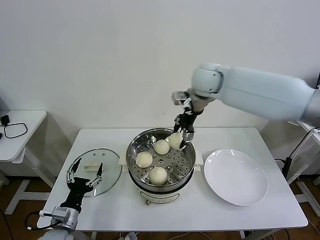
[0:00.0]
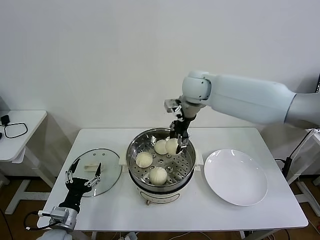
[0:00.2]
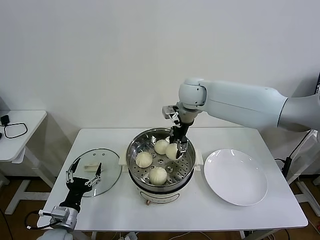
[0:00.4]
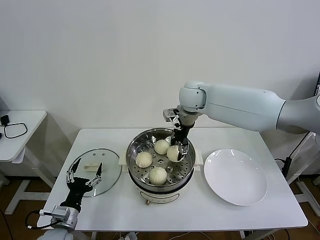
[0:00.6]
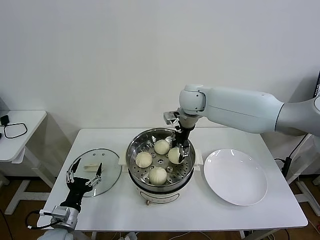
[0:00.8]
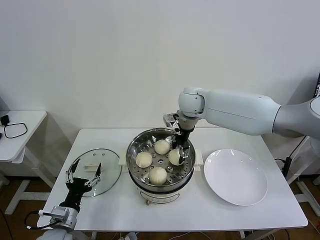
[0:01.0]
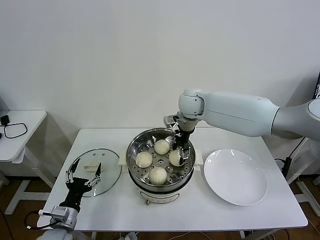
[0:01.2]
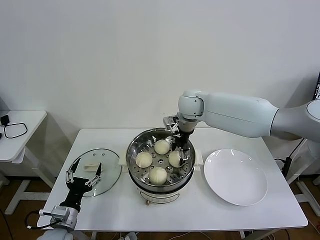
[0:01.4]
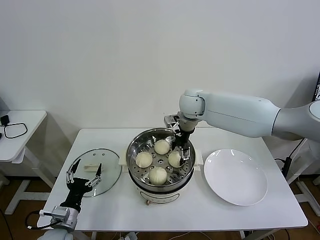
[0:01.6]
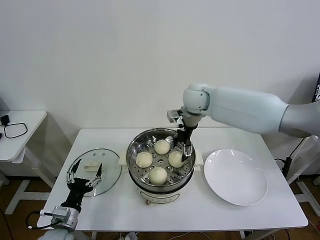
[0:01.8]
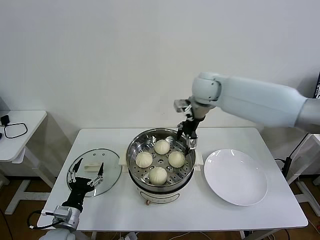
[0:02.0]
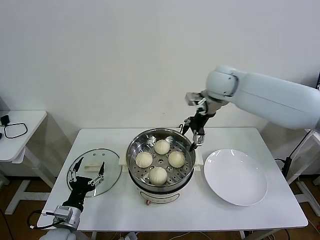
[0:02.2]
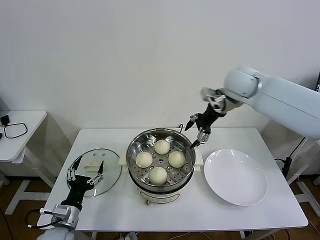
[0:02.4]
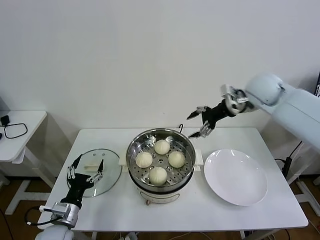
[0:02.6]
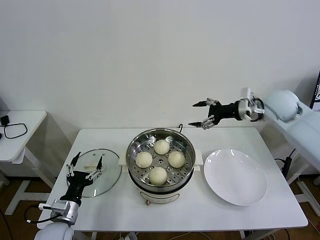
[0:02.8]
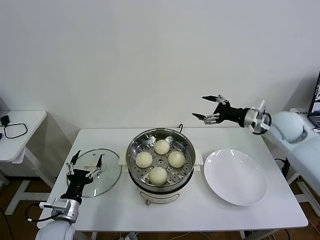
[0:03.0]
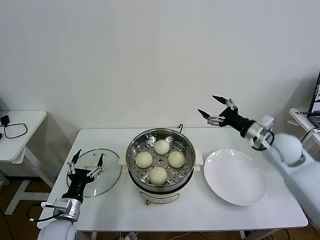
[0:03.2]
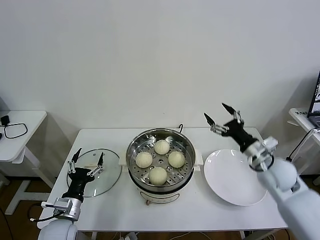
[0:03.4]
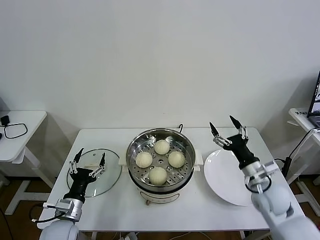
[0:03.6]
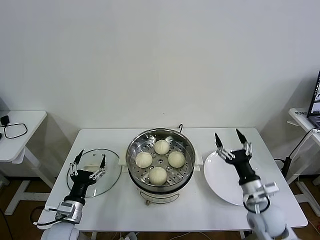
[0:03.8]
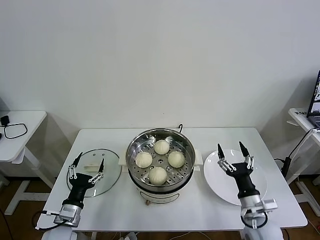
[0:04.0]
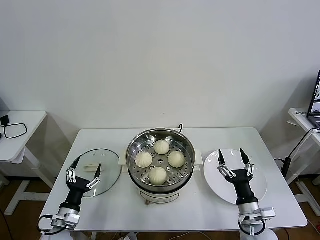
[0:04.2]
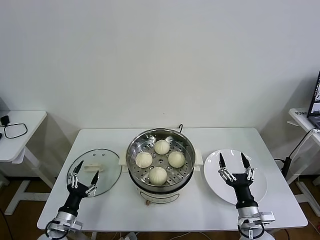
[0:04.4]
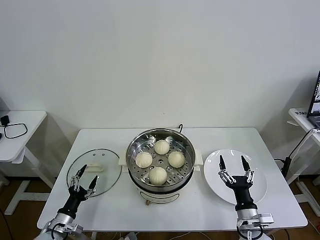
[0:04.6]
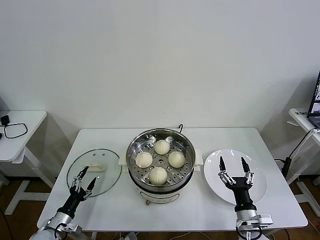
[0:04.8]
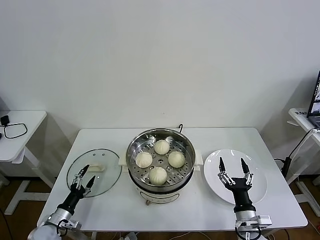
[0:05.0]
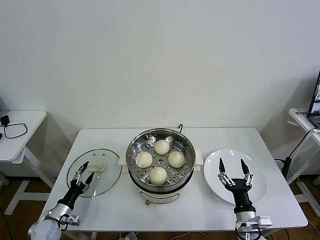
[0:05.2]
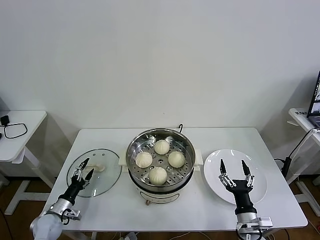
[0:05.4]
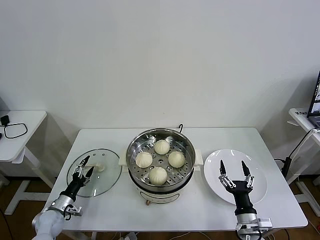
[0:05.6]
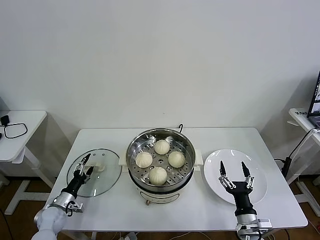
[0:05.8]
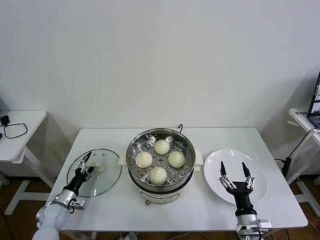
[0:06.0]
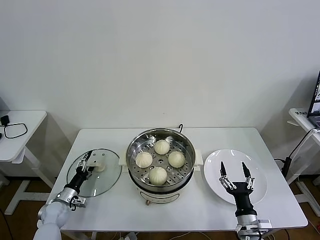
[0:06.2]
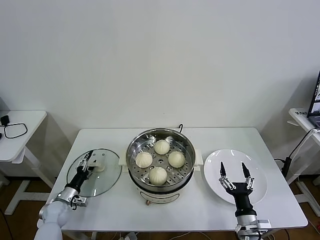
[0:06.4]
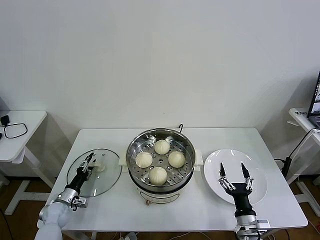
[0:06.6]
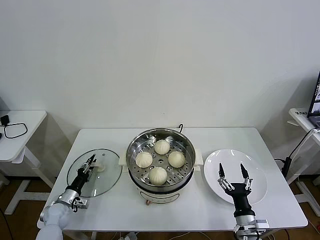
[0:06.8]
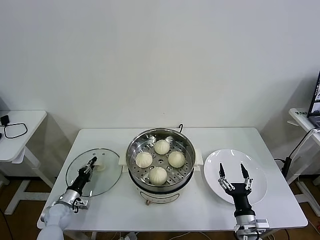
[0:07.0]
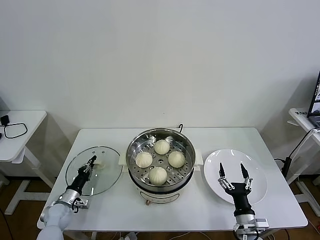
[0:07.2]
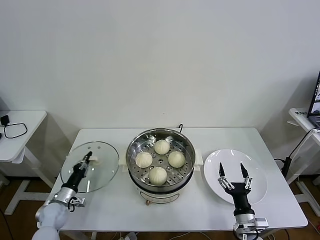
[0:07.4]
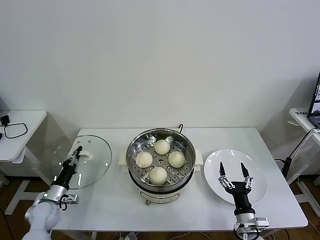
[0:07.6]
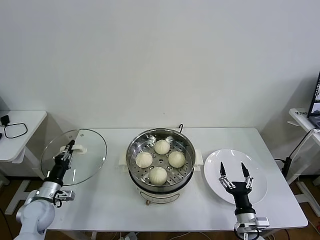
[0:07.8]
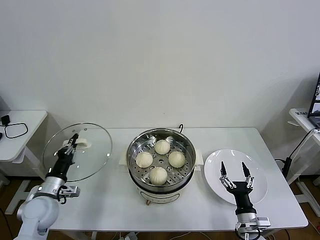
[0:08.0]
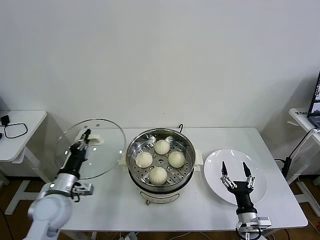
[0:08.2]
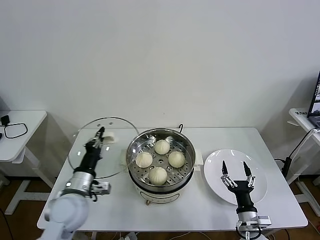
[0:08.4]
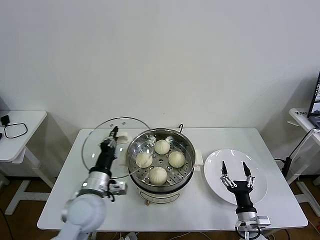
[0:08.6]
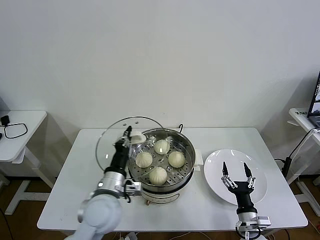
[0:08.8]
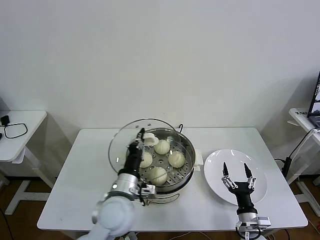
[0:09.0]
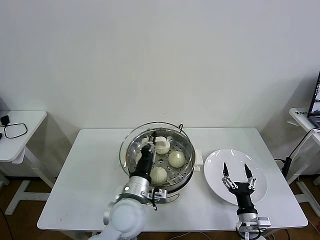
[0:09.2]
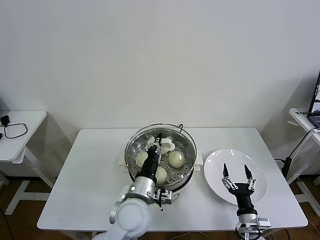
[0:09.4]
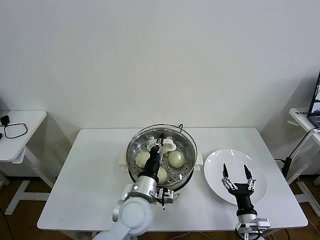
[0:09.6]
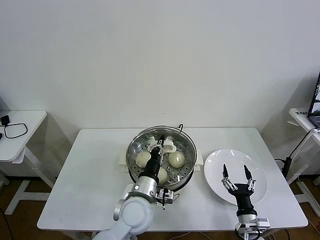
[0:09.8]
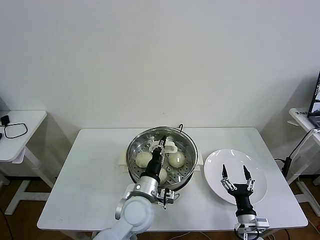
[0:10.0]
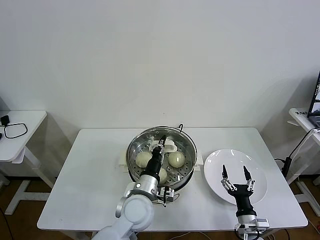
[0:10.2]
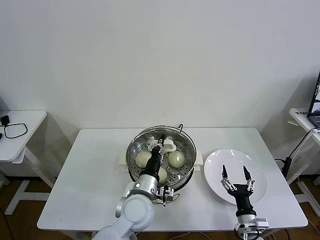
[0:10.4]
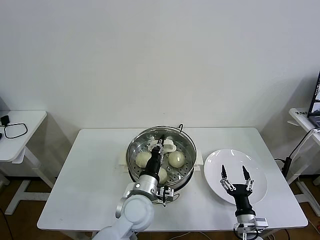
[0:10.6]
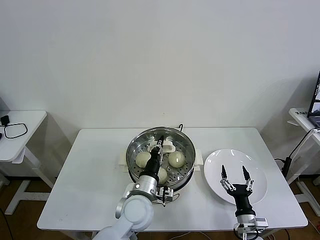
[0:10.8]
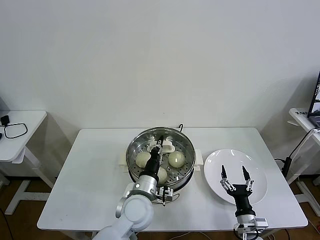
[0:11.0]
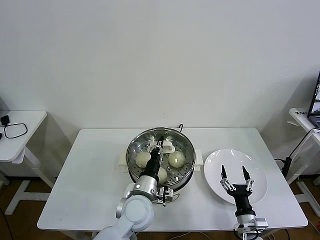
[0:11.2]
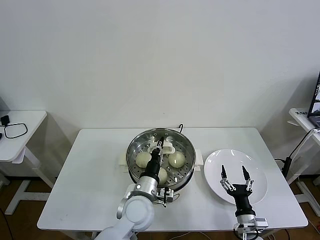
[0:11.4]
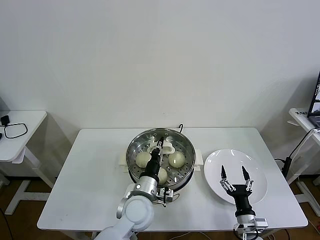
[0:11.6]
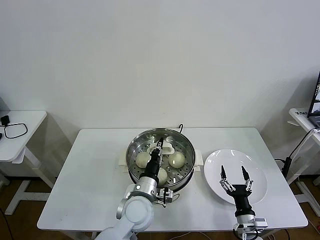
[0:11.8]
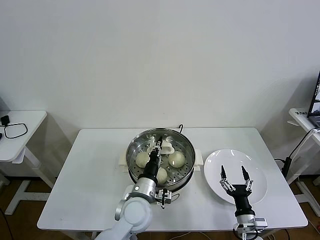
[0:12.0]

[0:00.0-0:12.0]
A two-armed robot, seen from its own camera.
Task of the whole recording: take steamed baozi put them in steamer then cover it.
Step, 0:01.8 to 0:07.4: Grasp the pot lid with left gripper.
0:00.0 to 0:01.6: The right gripper is displaced downward by about 10 cm, and opens up.
0:01.6 to 0:03.0: The right gripper is displaced to the right and backward by roughly 30 cm.
0:03.0 to 0:04.4: The left gripper moves downward, roughly 10 cm. The right gripper is displaced backward and downward by approximately 35 cm.
0:04.4 to 0:06.0: The left gripper is displaced forward, to the left and downward by about 15 cm.
0:06.0 to 0:07.6: The left gripper goes about 5 cm upward, and closes up.
0:07.6 to 0:09.0: The left gripper goes some 35 cm to the right and upward.
0:09.0 to 0:10.4: The left gripper travels to the right by about 5 cm.
0:10.4 to 0:12.0: The grippers stay close to where they were, moving slightly.

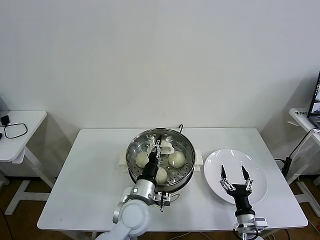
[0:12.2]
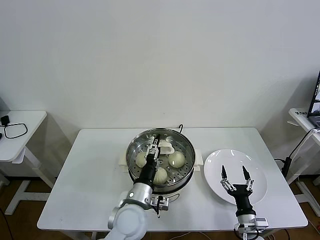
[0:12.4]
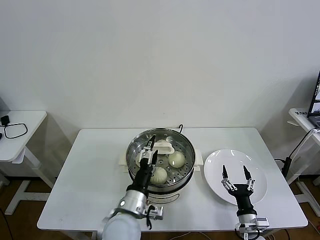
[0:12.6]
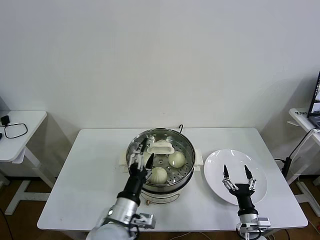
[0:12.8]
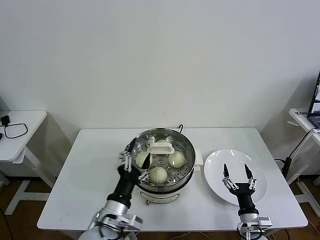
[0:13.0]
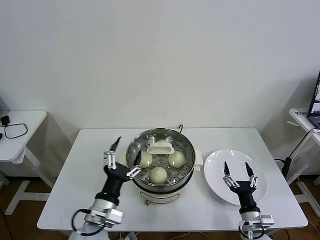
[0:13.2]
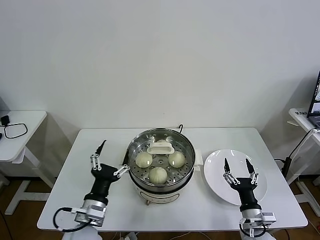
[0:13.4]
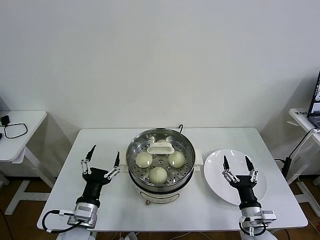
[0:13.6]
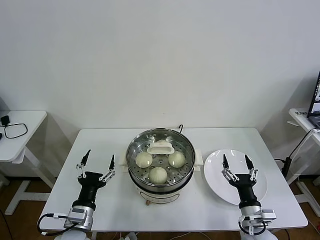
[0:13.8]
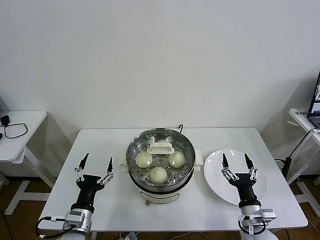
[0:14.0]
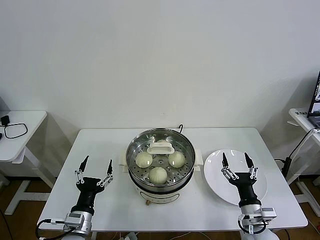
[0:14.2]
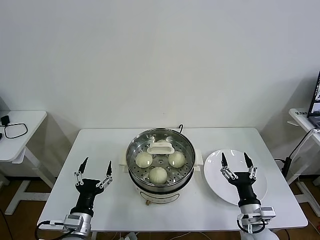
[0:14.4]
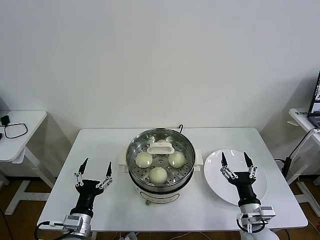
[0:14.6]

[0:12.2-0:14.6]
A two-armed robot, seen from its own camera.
Task of the whole recording: take steamed baozi put them in steamer then cover it.
0:12.2 to 0:13.4: The left gripper shifts roughly 15 cm to the left and backward, and opens up.
0:13.4 to 0:14.6: The left gripper is displaced downward and to the left by about 10 cm.
